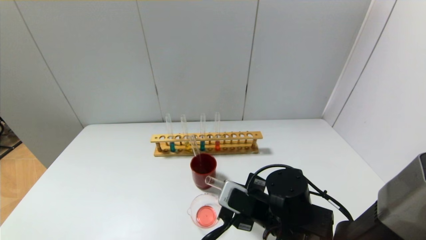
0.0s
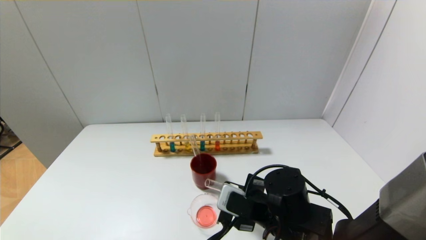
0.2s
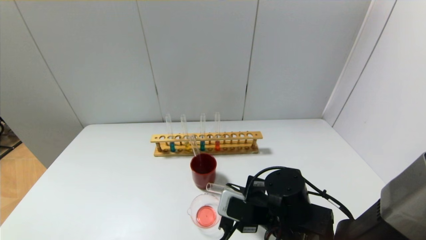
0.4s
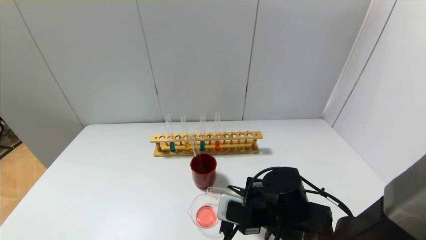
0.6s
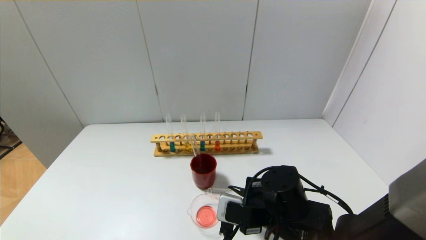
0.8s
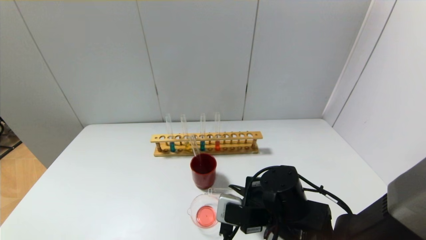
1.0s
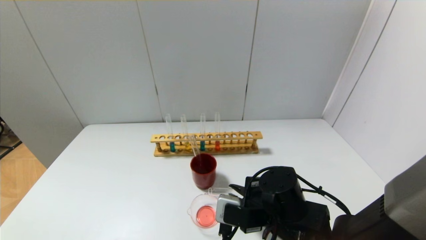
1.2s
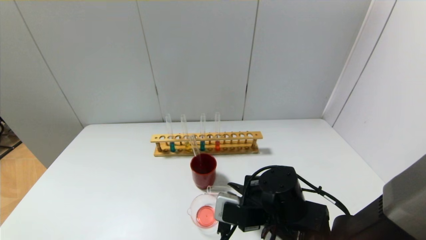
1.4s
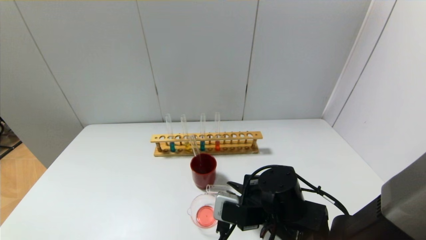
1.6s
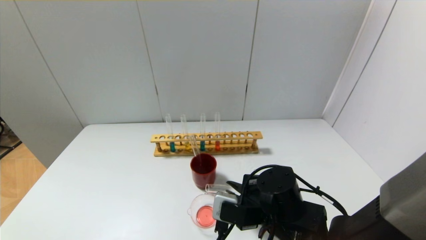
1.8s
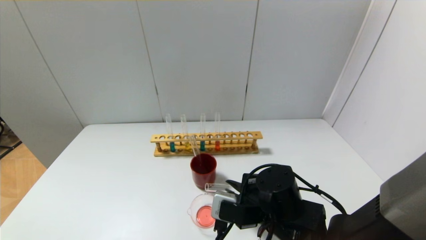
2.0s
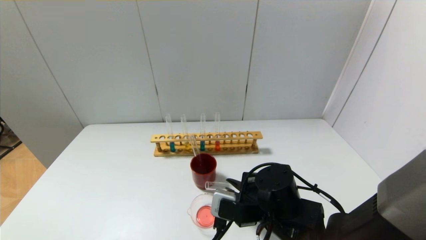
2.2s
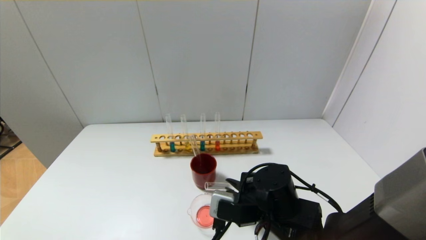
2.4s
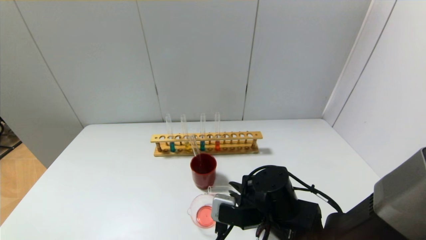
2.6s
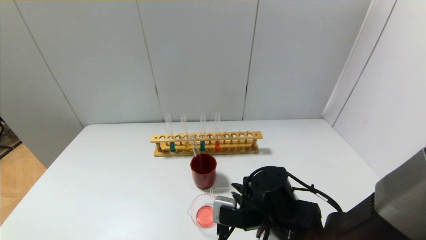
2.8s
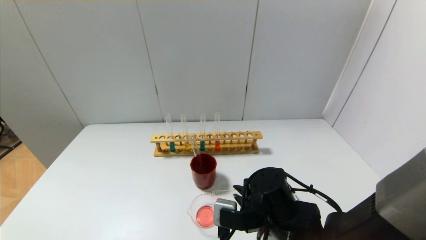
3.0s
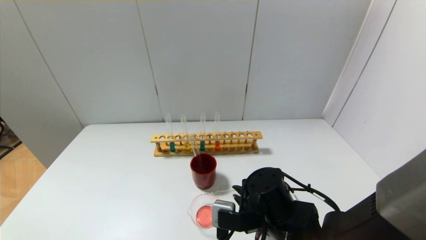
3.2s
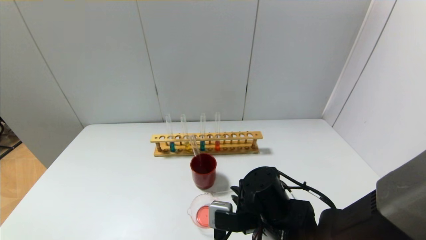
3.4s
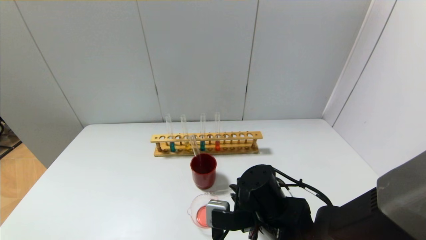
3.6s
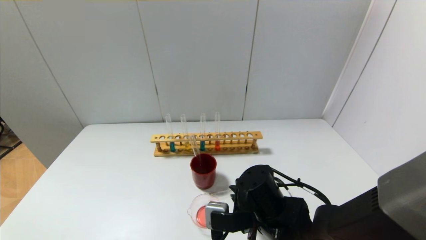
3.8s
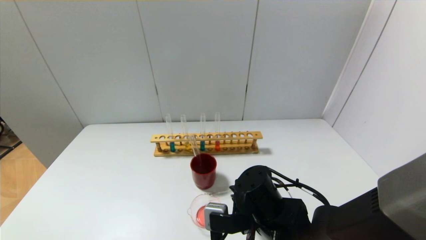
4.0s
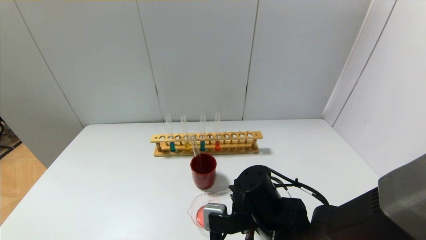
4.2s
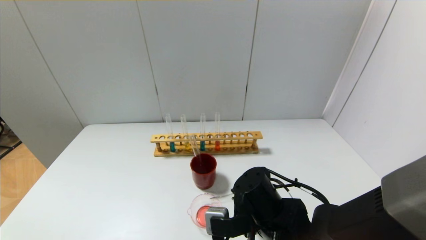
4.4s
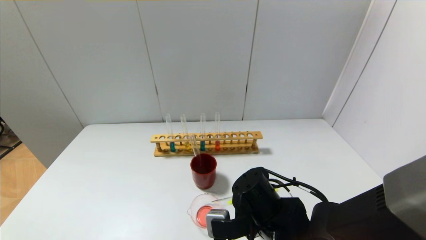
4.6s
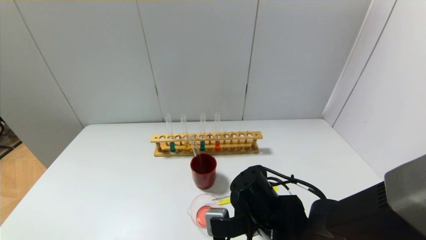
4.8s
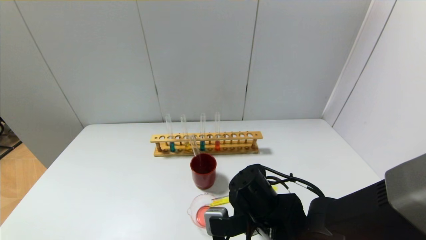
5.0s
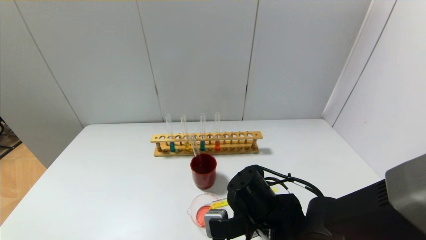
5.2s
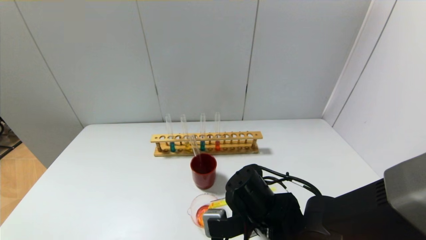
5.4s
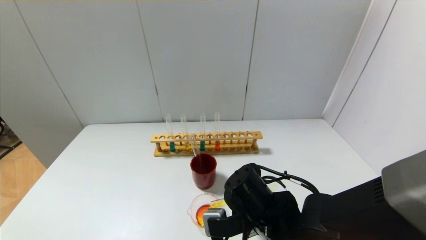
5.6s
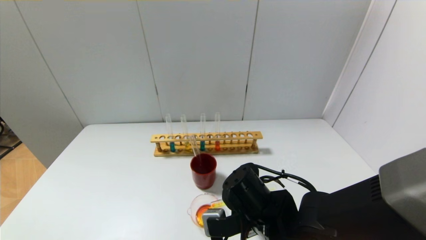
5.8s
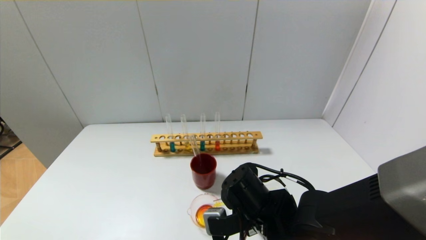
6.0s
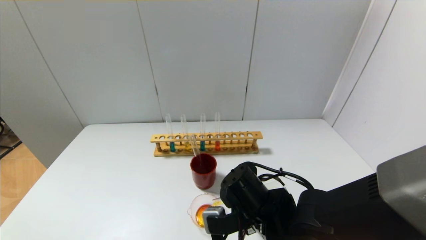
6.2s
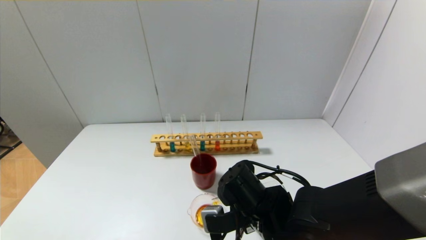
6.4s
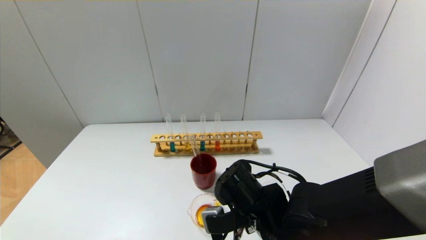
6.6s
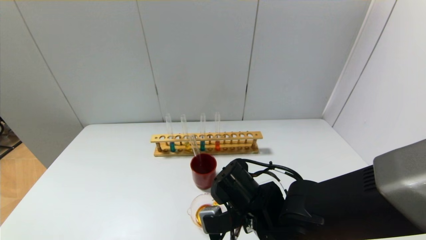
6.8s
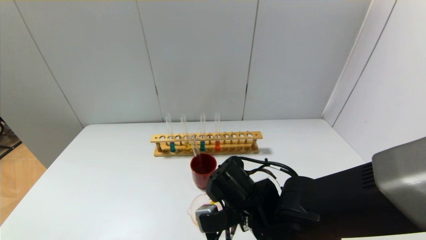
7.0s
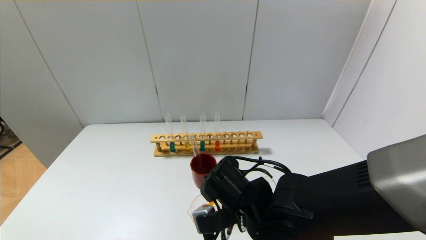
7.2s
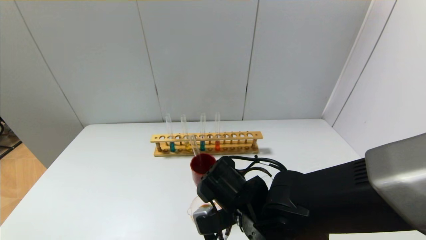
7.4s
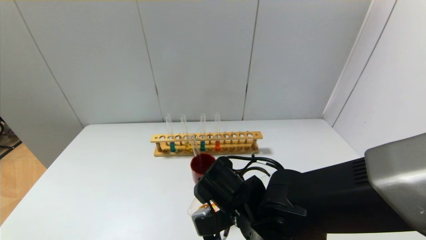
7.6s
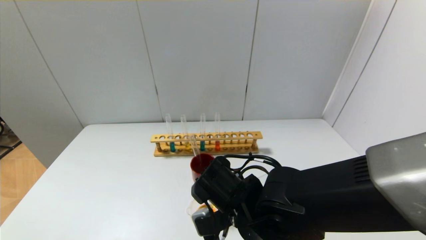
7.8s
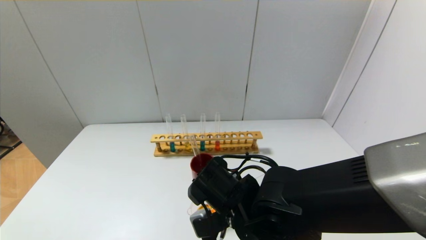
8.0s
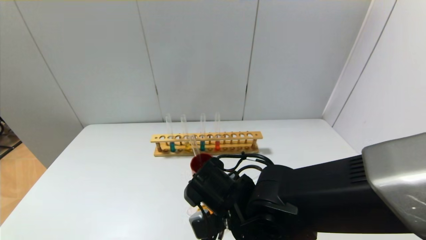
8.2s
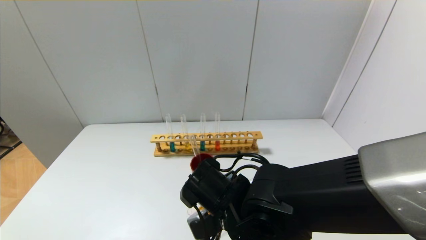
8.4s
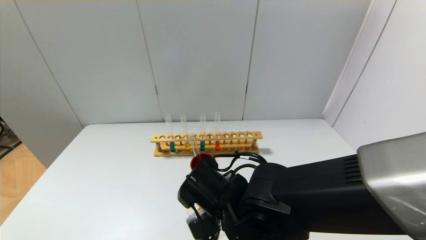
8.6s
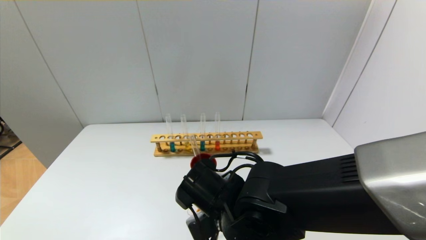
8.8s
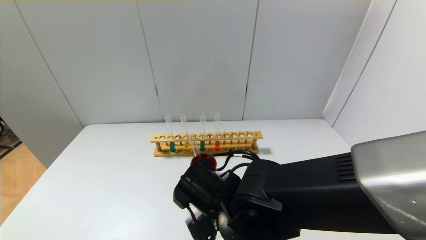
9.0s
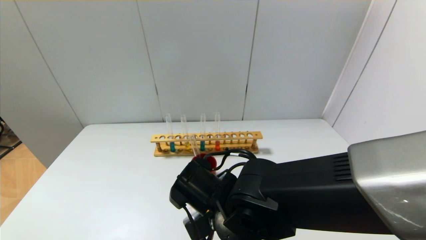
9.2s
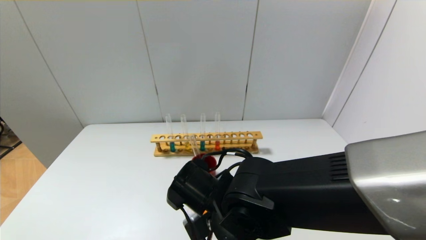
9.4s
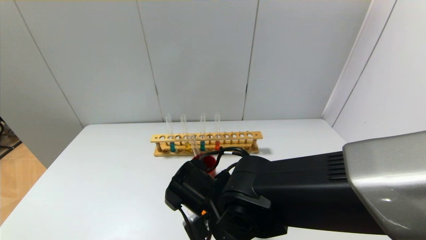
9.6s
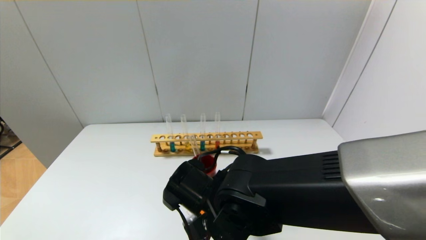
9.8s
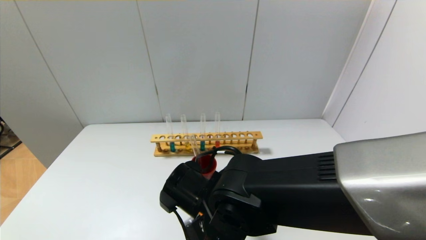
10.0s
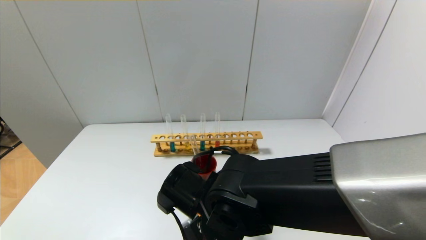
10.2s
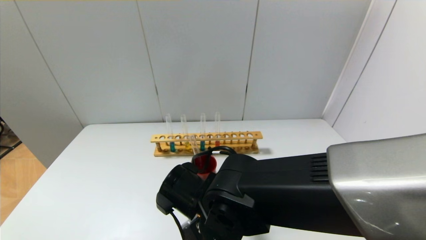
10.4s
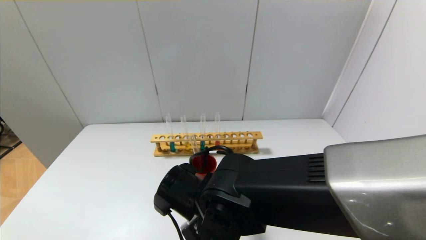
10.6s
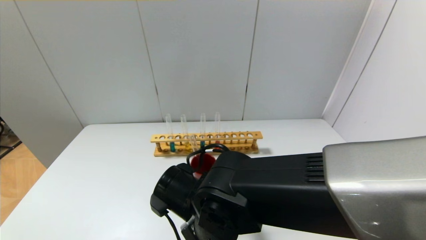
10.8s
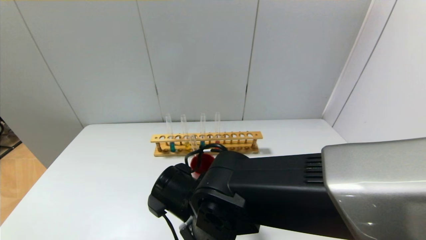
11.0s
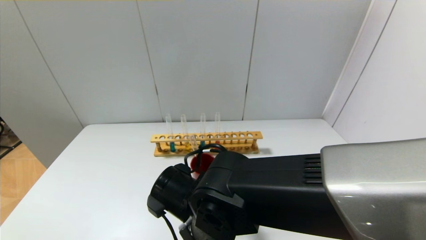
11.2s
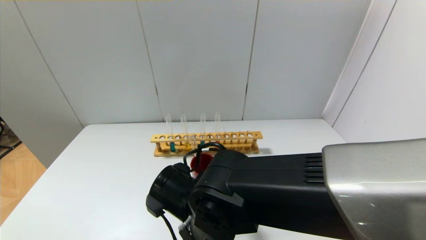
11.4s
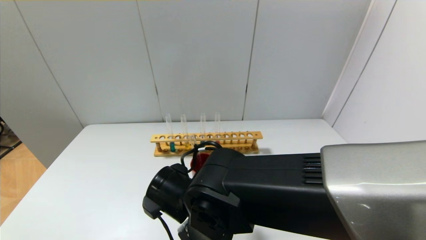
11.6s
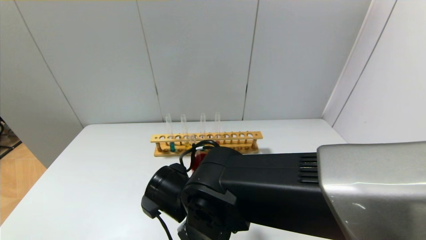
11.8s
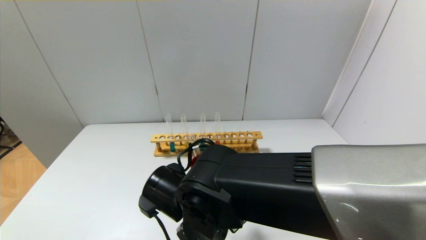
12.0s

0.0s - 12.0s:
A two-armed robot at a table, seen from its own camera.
0.0s - 1.6s: There are only small adjustments of the grippers.
1.6s - 3.0s: The grippers make only small movements.
3.0s - 4.4s: There are only small adjustments of the grippers.
4.4s - 6.0s: There are only small adjustments of the grippers.
6.0s - 7.6s: The grippers make only small movements.
7.6s - 10.4s: There are only small adjustments of the grippers.
10.4s - 12.0s: There are only small adjustments of the grippers.

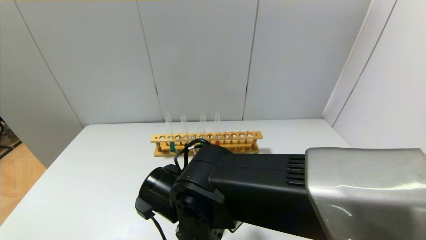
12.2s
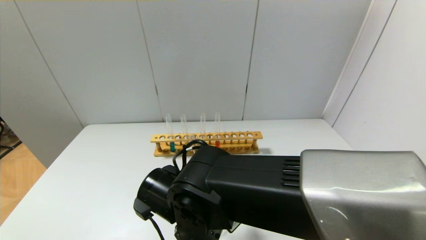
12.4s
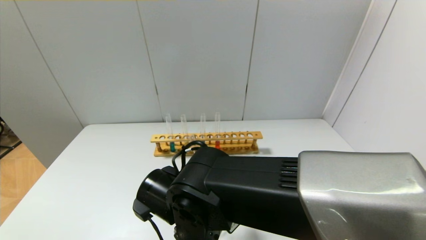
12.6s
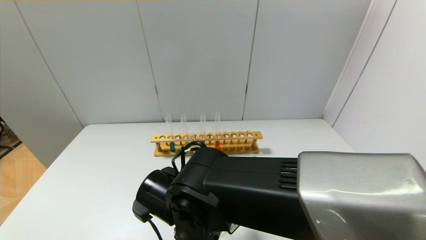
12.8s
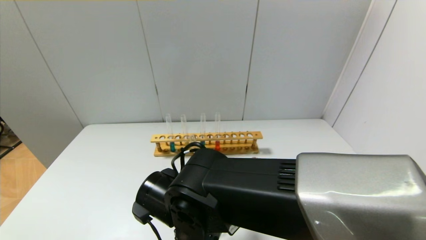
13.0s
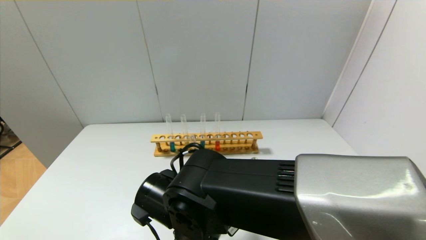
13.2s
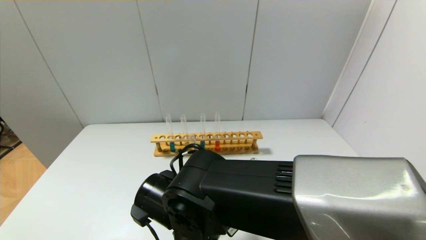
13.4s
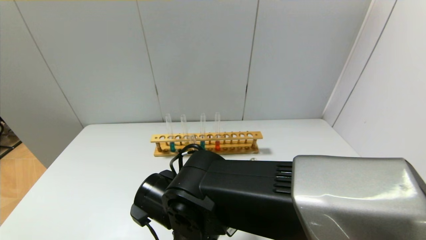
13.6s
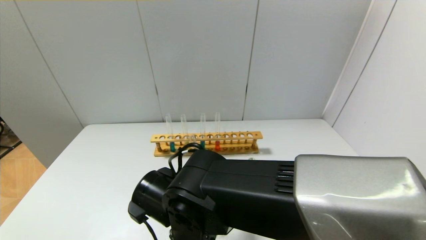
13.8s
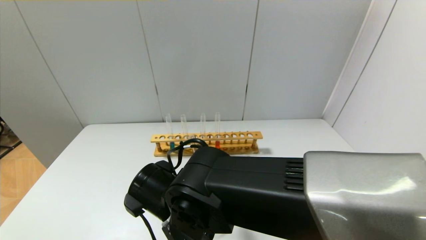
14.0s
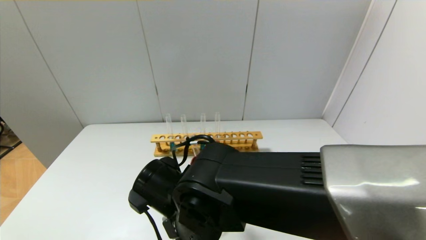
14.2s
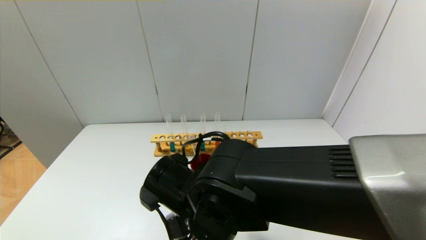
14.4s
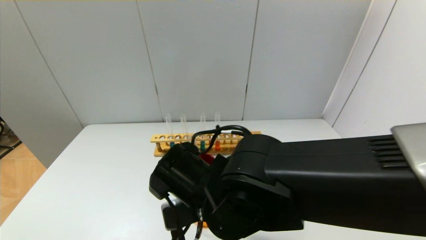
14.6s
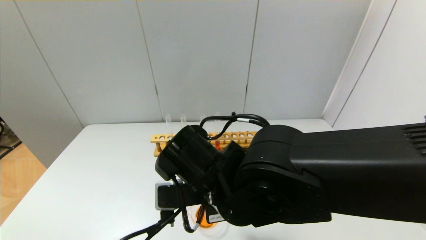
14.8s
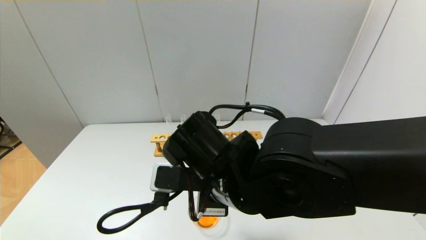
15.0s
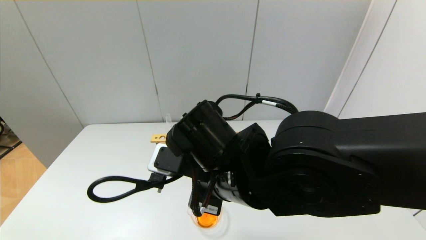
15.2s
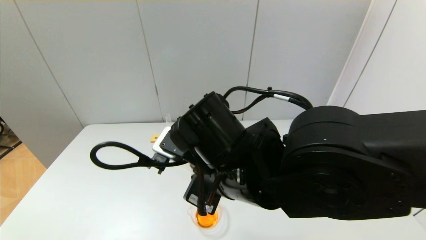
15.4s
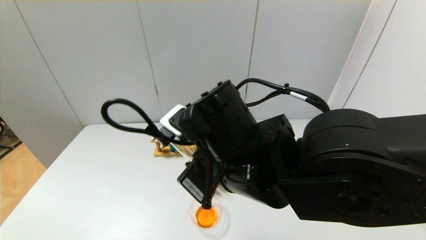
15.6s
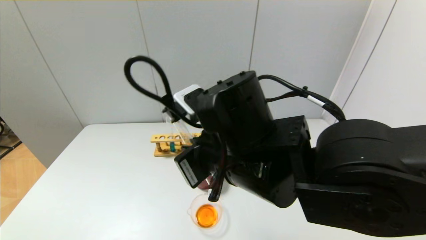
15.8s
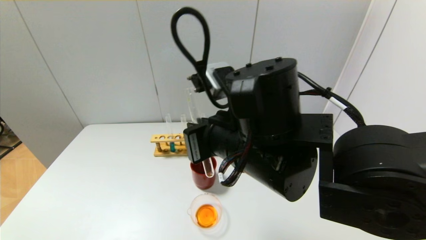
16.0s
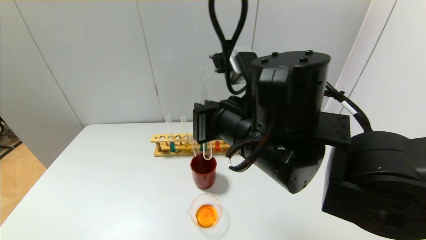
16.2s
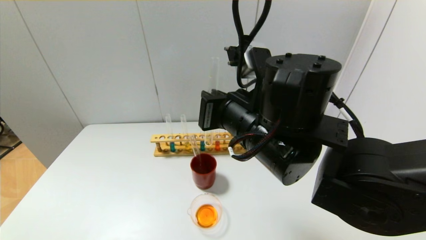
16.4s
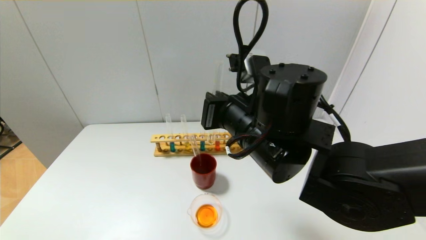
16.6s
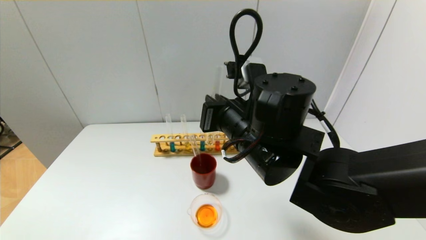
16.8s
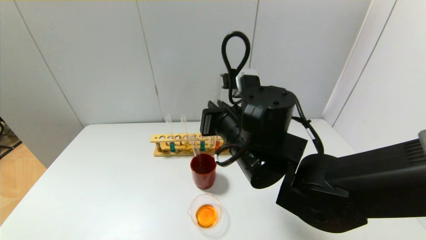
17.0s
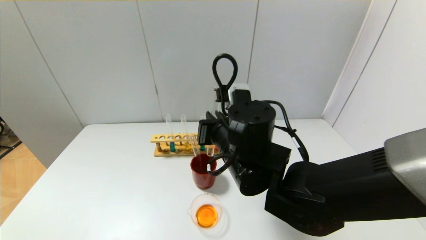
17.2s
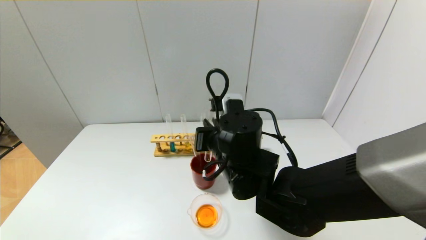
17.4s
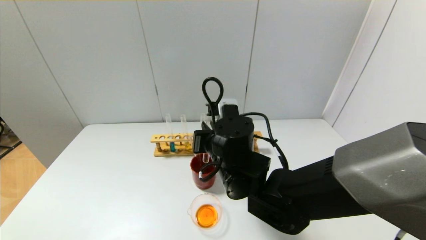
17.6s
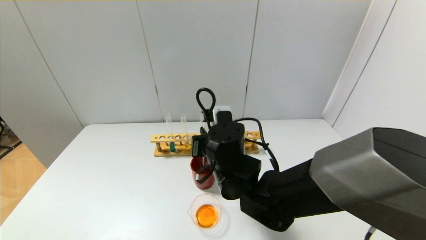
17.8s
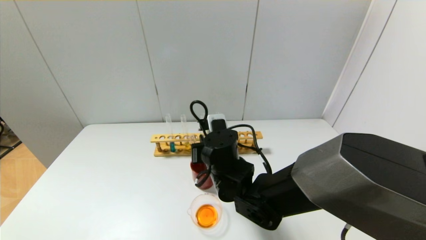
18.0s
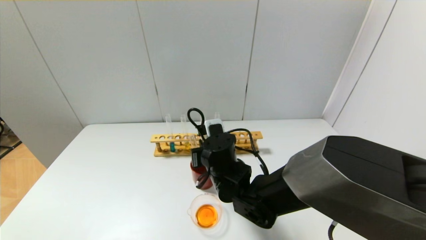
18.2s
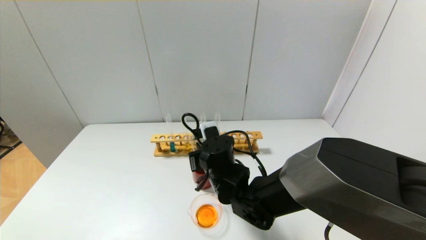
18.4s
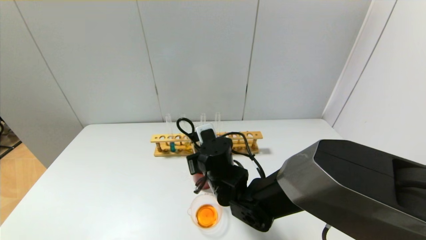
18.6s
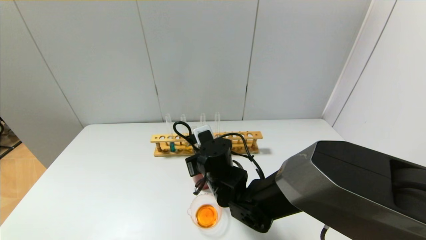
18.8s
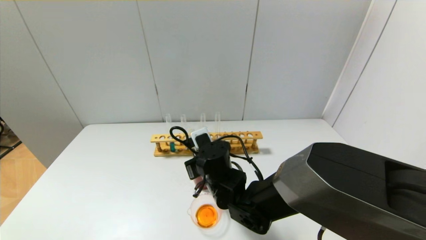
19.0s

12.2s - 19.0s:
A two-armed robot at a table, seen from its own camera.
Step, 12.2s - 14.8s: Pour the yellow reagent into the graduated cylinder with the right gripper.
12.2s - 13.6s: Both grippers stay put.
13.6s - 15.0s: The right gripper heads upward, covering about 5 cm.
15.0s - 16.2s: The right gripper goes approximately 5 cm upward.
16.2s - 17.6s: The right gripper travels downward and forward by some 10 cm.
17.6s - 19.0s: The right gripper heads downward, covering approximately 10 cm.
